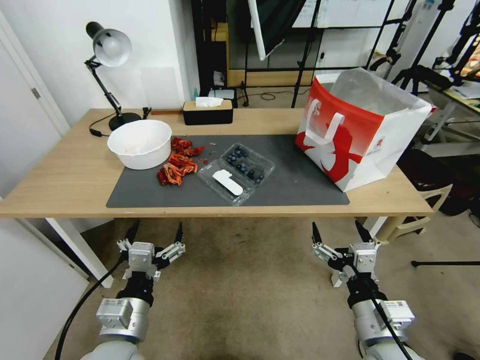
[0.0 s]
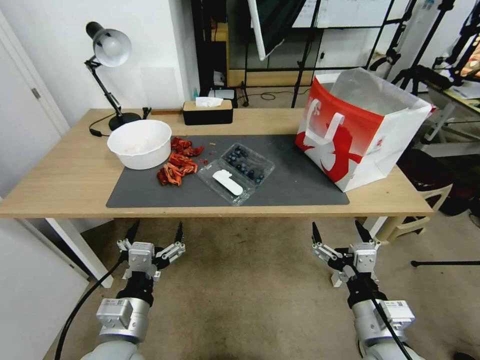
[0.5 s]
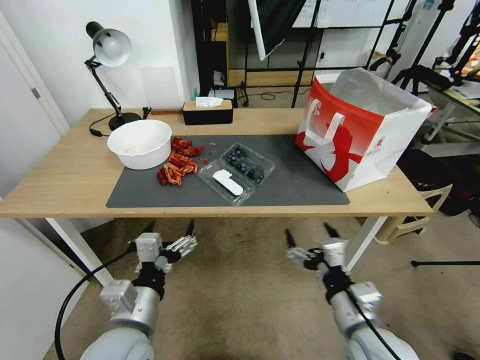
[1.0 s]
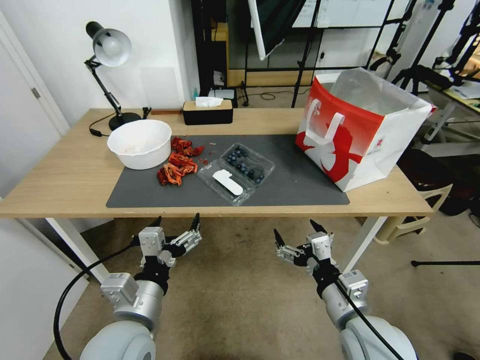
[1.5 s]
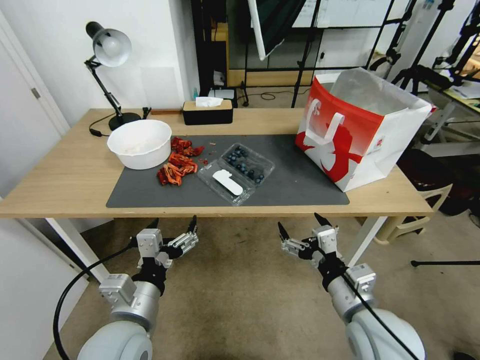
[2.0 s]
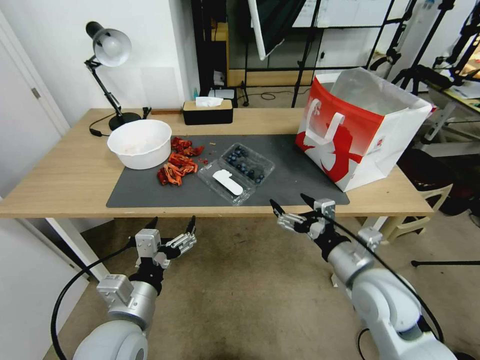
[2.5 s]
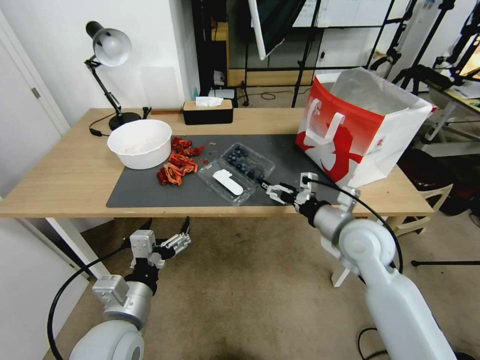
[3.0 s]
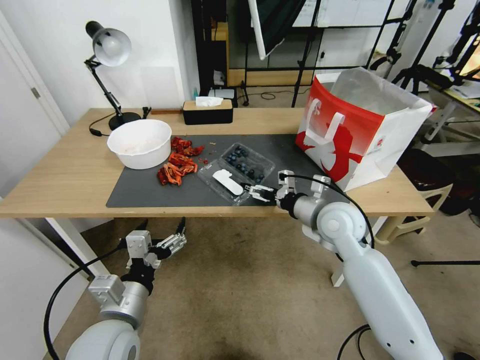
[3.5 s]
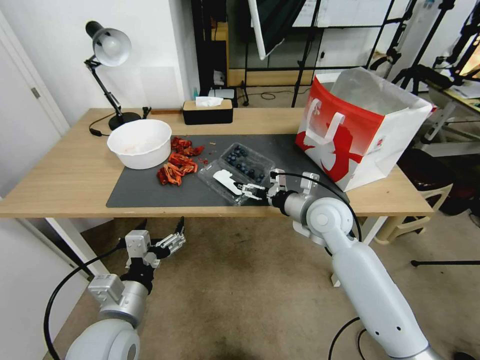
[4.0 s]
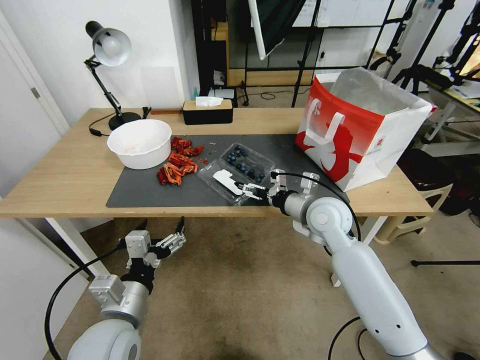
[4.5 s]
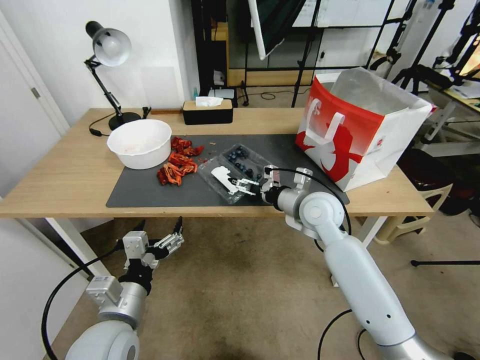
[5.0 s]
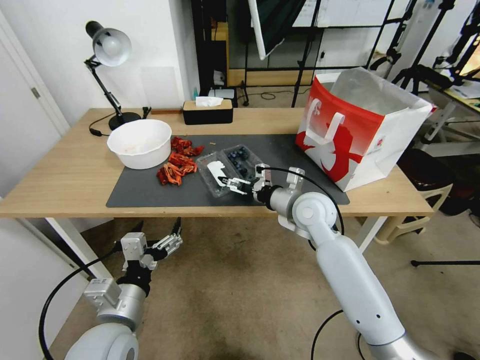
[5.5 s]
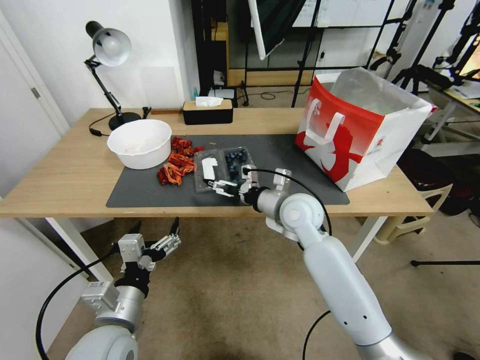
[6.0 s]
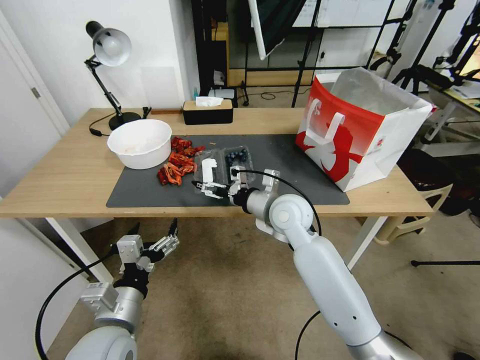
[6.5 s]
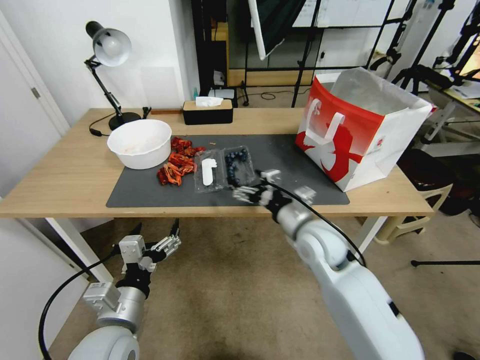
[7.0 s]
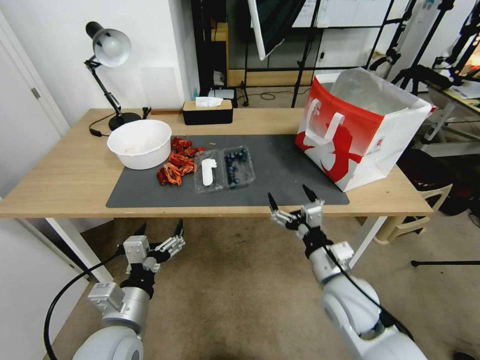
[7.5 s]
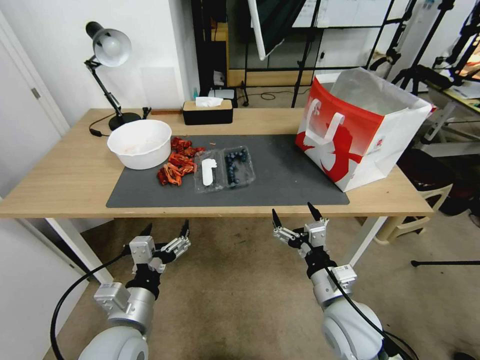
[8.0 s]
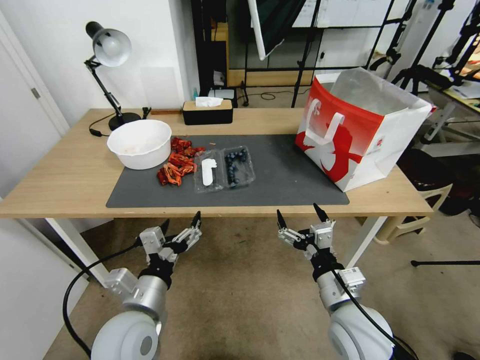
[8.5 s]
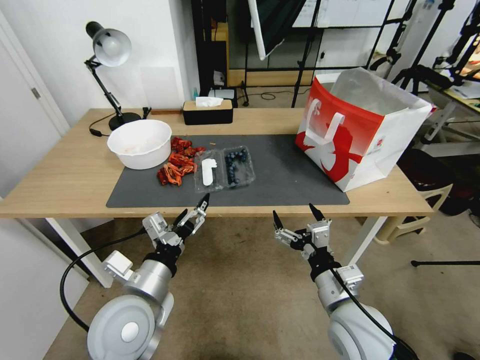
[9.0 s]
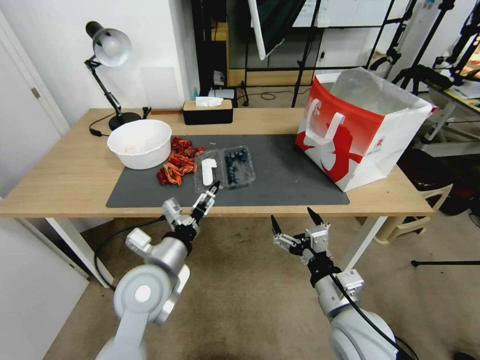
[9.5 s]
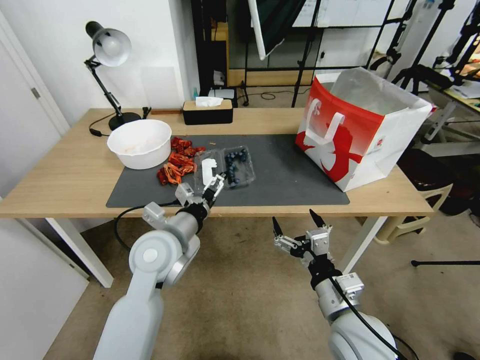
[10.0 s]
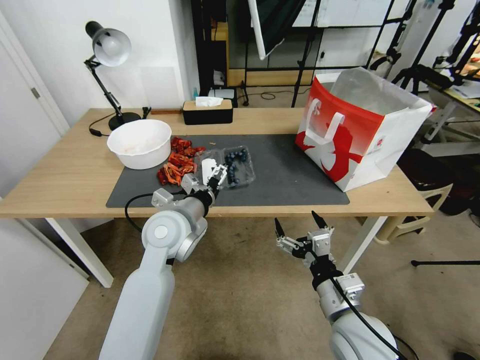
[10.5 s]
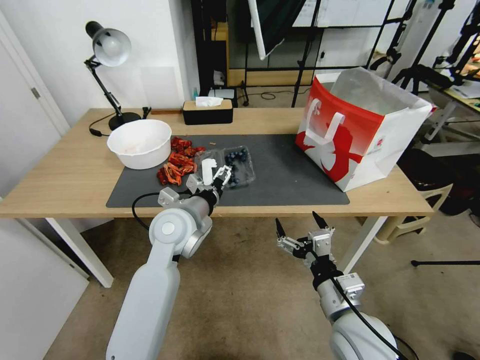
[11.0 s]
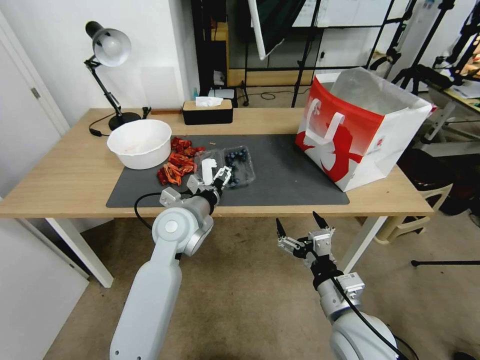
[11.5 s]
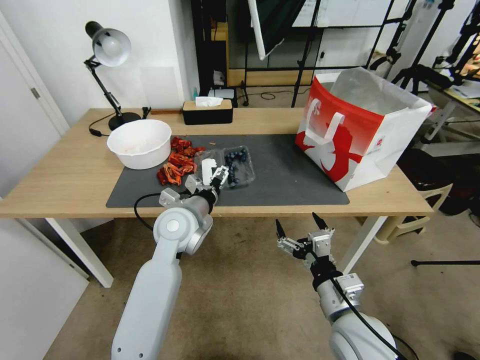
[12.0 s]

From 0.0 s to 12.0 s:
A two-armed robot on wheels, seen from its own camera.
Task of the whole recording: Close the takeout container lid, then place the container into the takeout bag.
From 2.0 s to 4.0 s: The right gripper travels forward by about 20 cm.
From 4.0 s to 6.0 s: The right gripper goes approximately 5 cm to the left.
From 6.0 s to 8.0 s: The right gripper is displaced backward and downward by some 20 cm.
From 8.0 s to 10.0 s: The left gripper moves forward and upward, about 15 cm.
From 10.0 s to 12.0 s: The left gripper shifts roughly 5 cm forward.

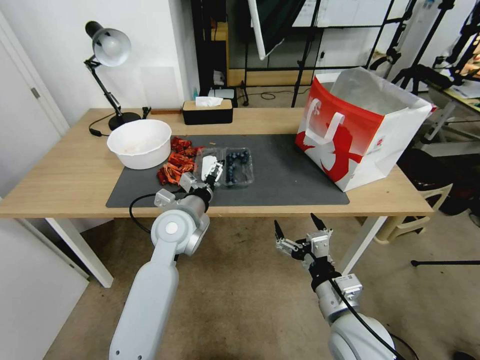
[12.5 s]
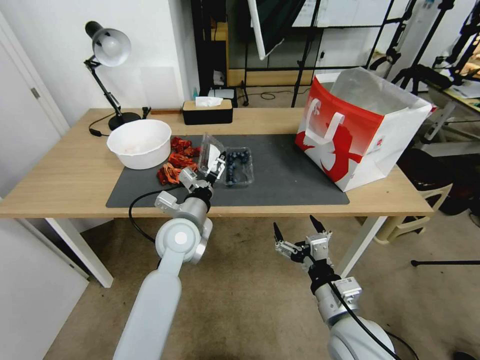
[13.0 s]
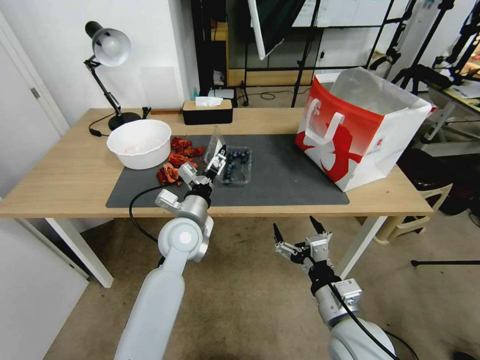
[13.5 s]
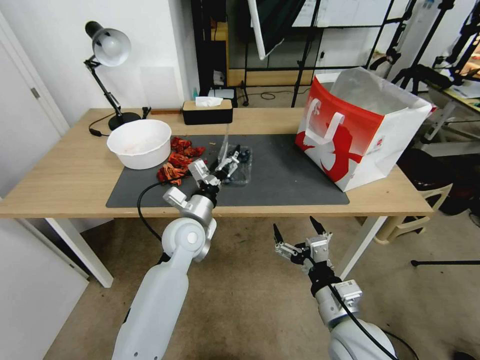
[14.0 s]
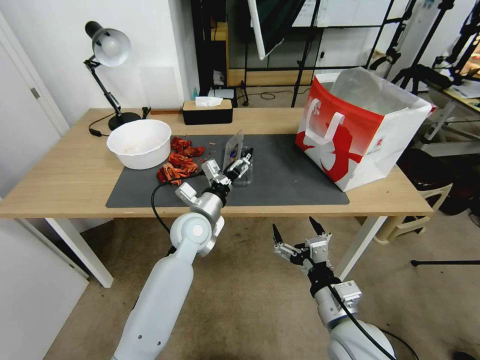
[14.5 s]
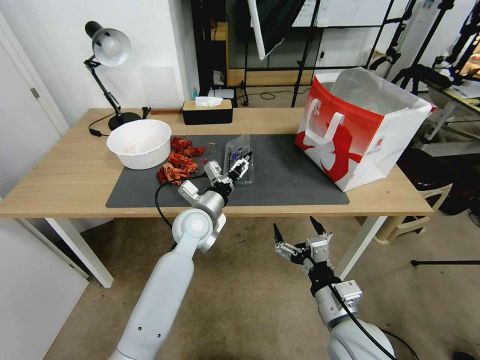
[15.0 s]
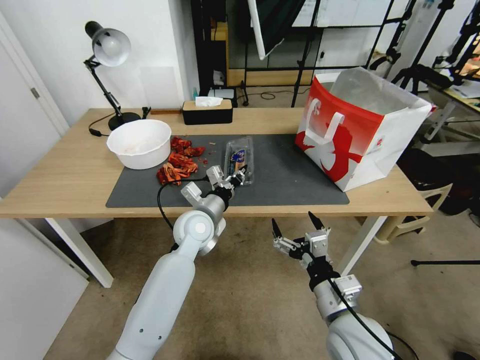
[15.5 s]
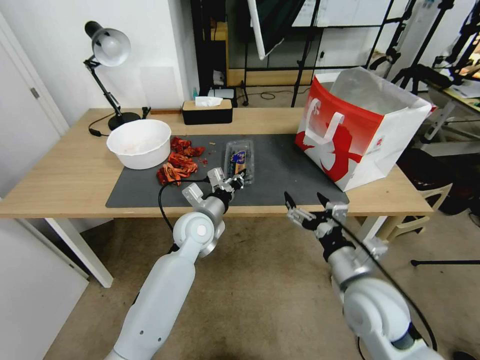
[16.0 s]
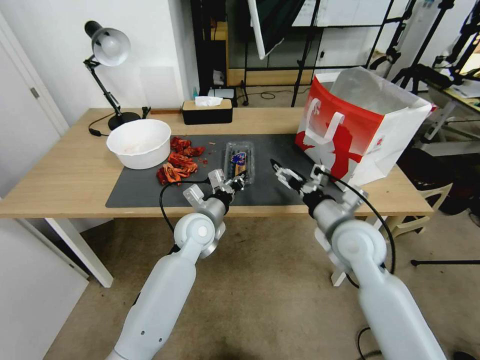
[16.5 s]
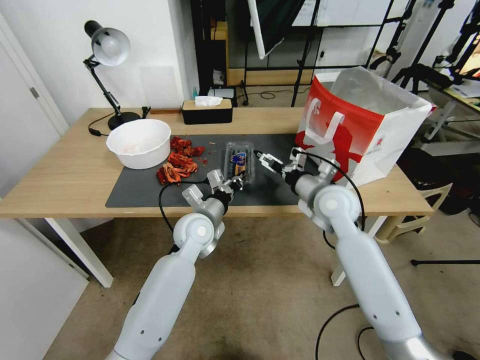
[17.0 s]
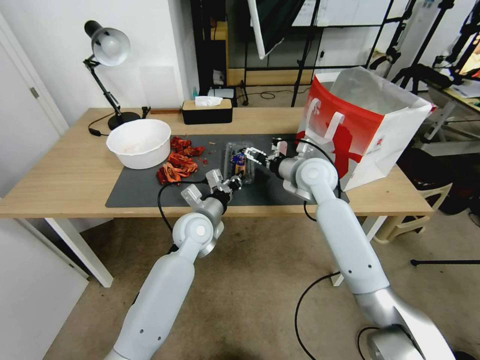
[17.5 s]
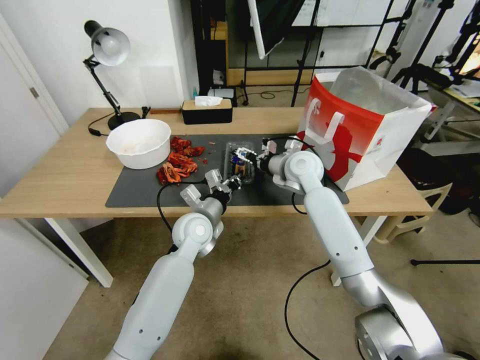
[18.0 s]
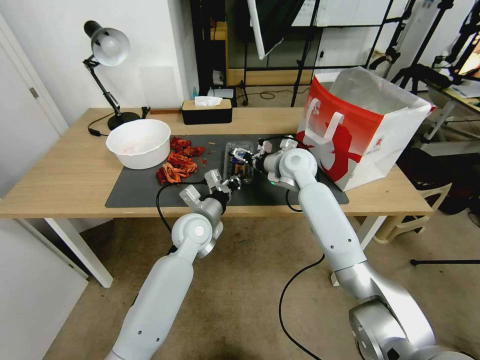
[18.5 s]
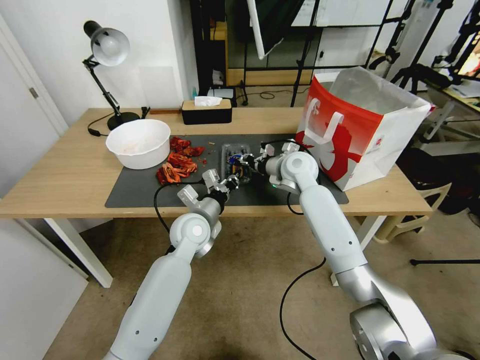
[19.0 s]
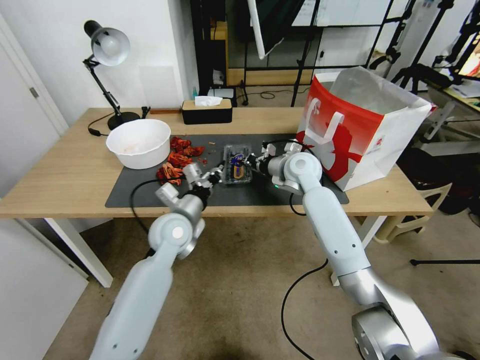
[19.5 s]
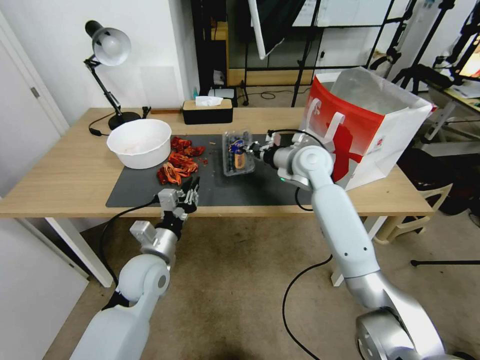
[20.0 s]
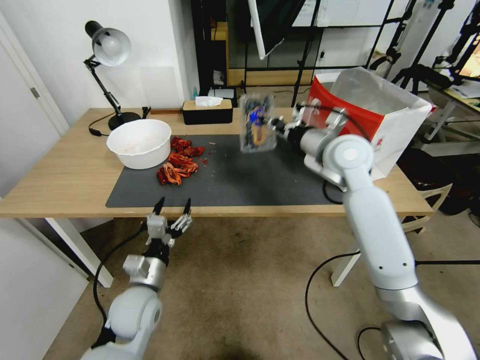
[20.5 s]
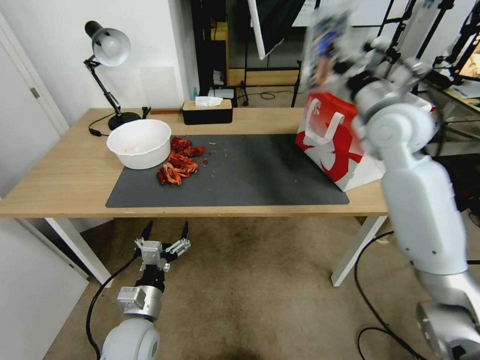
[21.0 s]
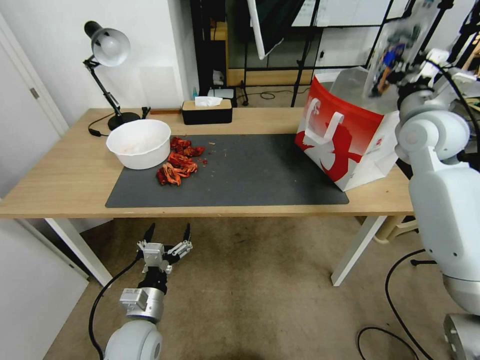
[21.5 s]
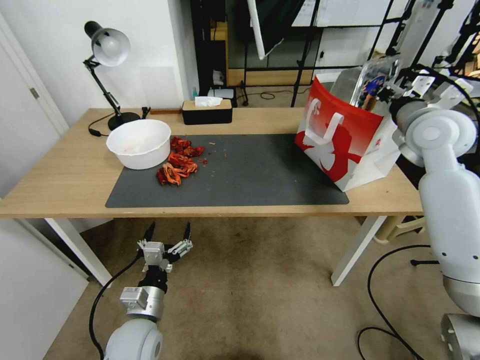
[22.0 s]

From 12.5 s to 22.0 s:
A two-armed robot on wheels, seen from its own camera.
Task of the whole recording: Close the takeout container lid, then place the container into the takeout bag.
From 12.5 s to 14.5 s: The left gripper ends up about 5 cm from where it was.
From 14.5 s to 16.5 s: The right gripper is displaced forward and upward by some 10 cm, while the left gripper closes its fingers.
From 16.5 s to 18.0 s: The right gripper moves forward, some 25 cm.
From 18.0 s to 20.0 s: The left gripper goes some 15 cm backward and to the left. The right gripper closes up.
From 20.0 s to 22.0 s: The right gripper travels to the right and upward by about 20 cm; the left gripper shifts some 10 cm backward and downward, and opens.

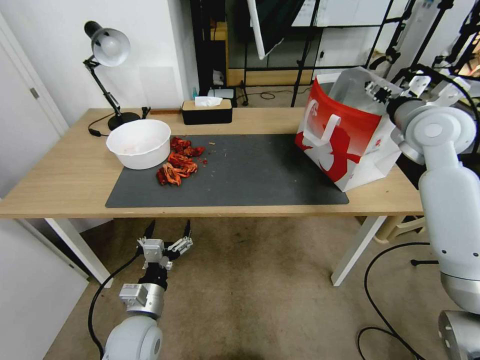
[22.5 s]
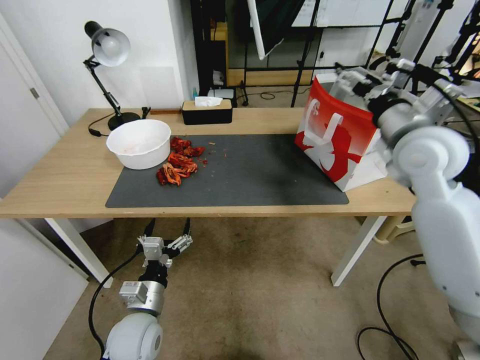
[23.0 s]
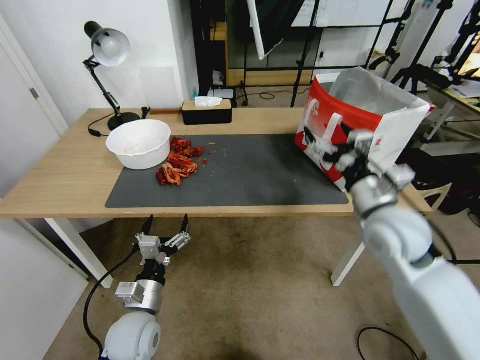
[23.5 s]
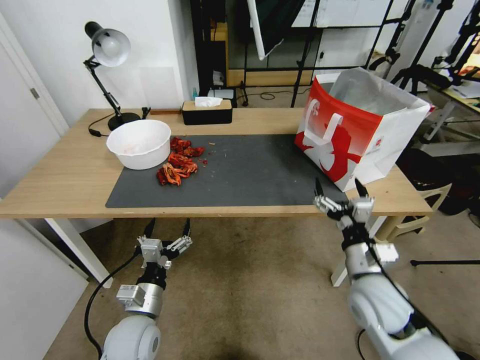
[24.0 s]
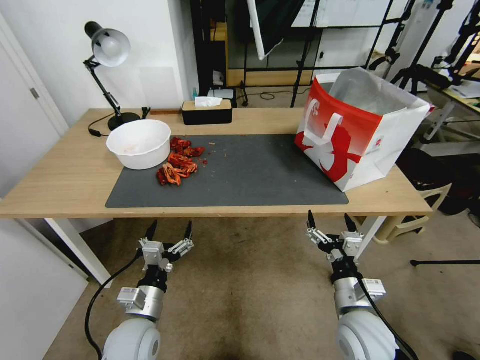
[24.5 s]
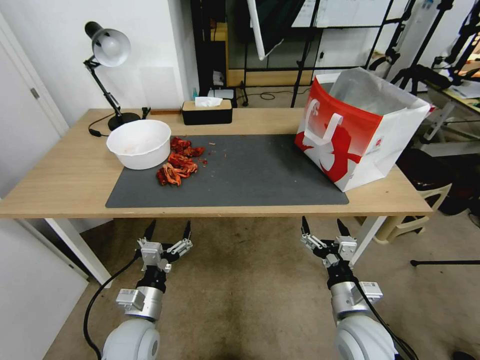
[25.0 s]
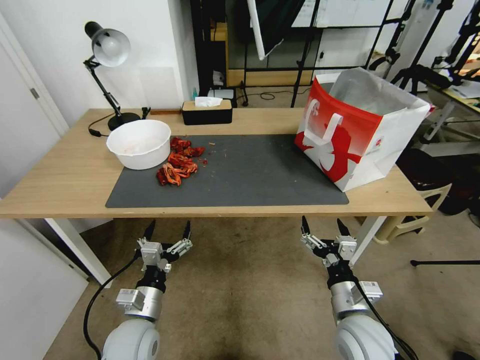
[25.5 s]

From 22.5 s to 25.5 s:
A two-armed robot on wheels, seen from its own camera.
Task of the whole recording: Close the takeout container lid, then place the container into the takeout bag.
From 22.5 s to 24.0 s: The right gripper moves downward and backward, roughly 35 cm.
From 24.0 s to 25.5 s: The right gripper heads downward and backward, covering approximately 10 cm.

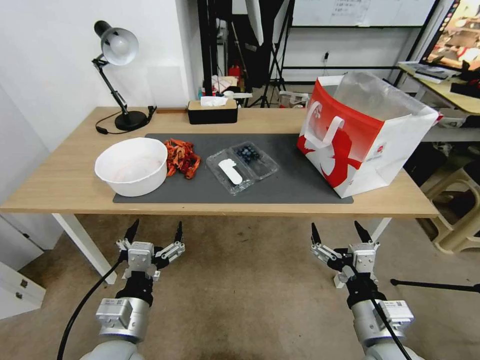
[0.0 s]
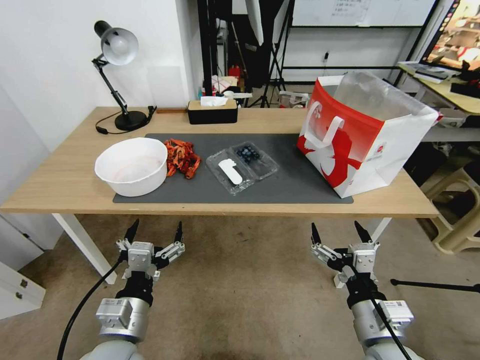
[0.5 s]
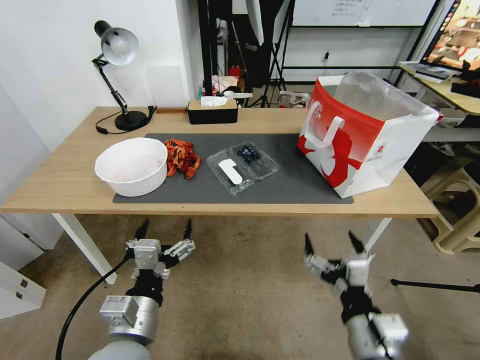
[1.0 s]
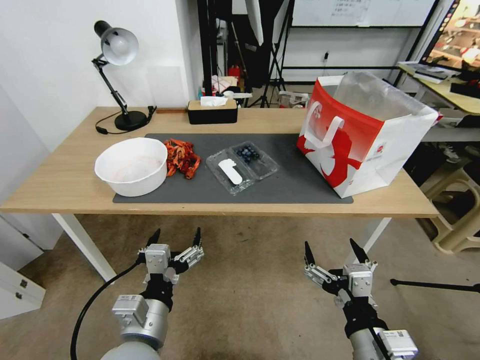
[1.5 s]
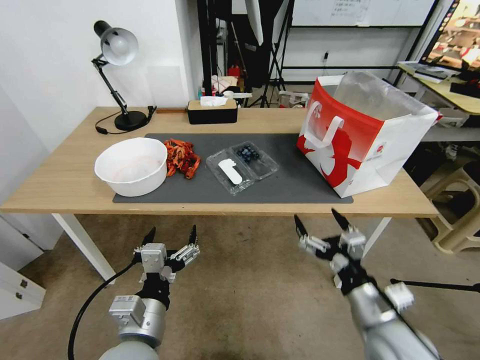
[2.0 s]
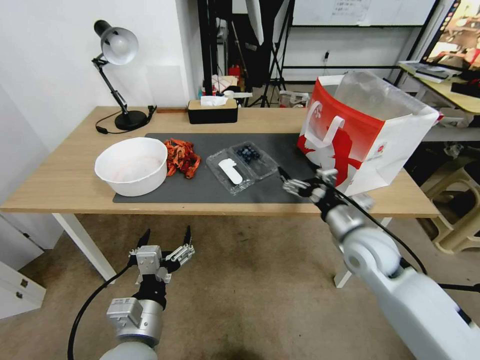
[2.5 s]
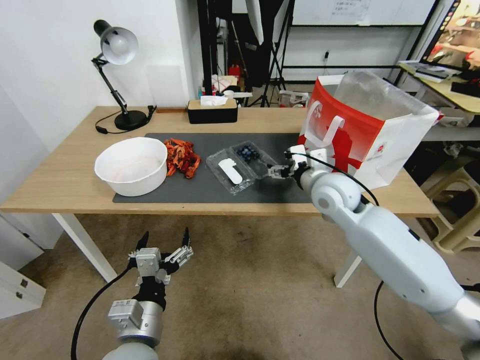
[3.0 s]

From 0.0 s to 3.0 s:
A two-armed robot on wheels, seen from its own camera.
Task of the whole recording: Close the takeout container lid, then place the container into the takeout bag.
From 1.5 s to 3.0 s: The right gripper heads forward, covering about 35 cm.
